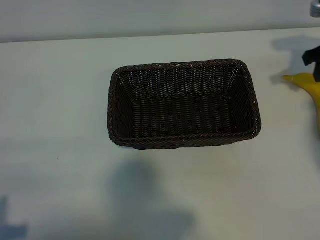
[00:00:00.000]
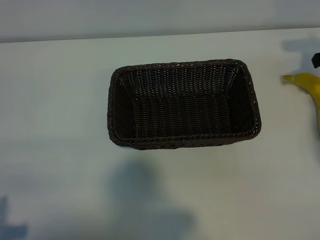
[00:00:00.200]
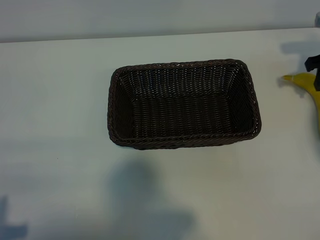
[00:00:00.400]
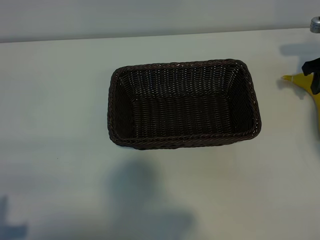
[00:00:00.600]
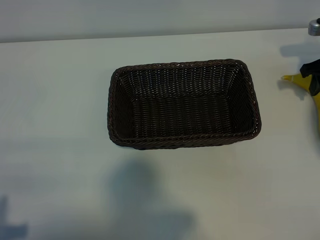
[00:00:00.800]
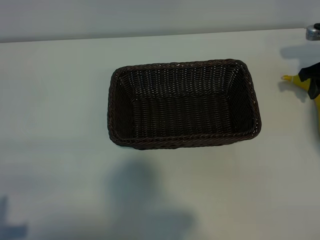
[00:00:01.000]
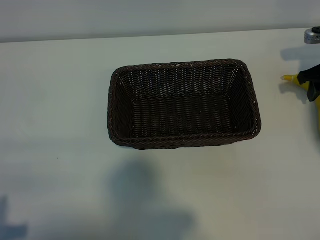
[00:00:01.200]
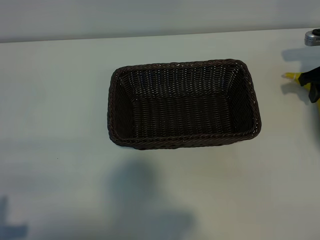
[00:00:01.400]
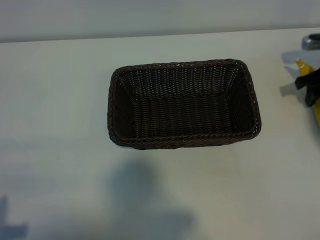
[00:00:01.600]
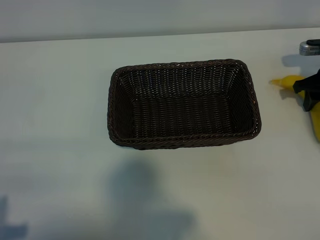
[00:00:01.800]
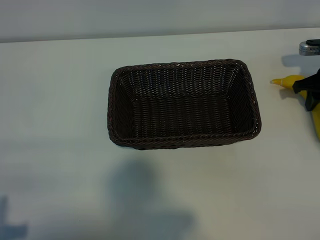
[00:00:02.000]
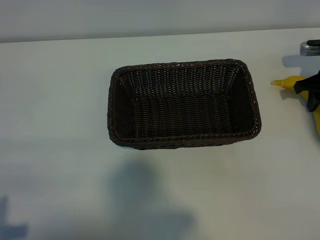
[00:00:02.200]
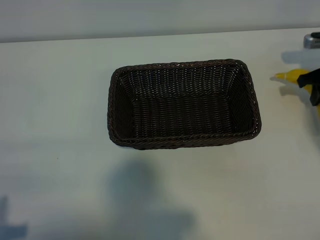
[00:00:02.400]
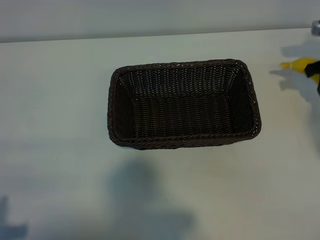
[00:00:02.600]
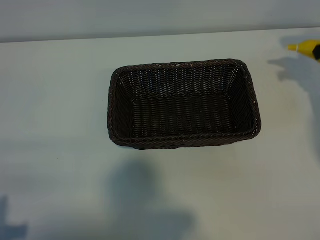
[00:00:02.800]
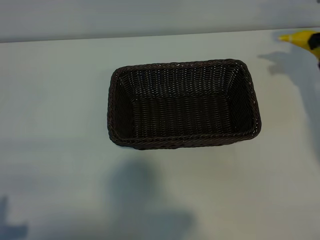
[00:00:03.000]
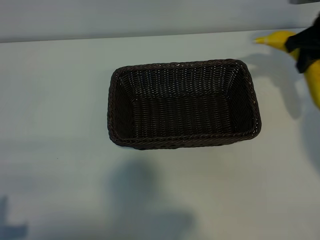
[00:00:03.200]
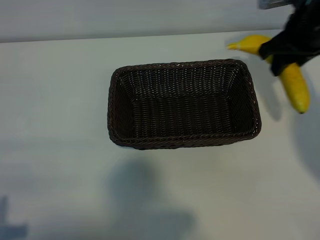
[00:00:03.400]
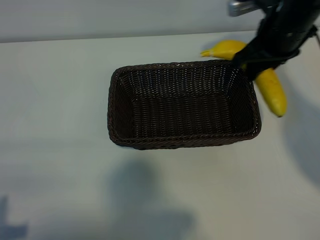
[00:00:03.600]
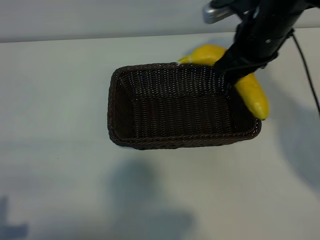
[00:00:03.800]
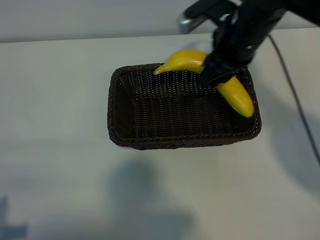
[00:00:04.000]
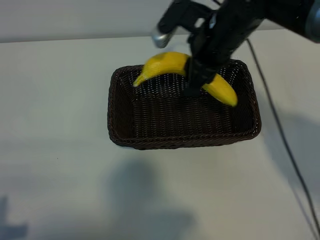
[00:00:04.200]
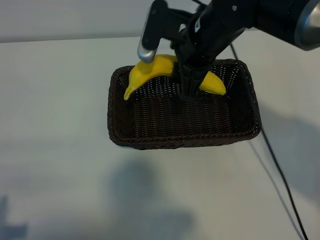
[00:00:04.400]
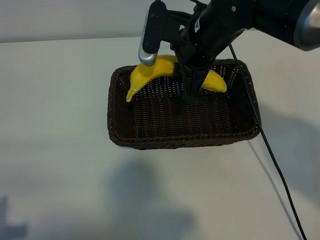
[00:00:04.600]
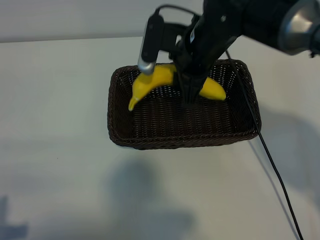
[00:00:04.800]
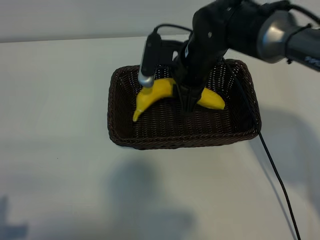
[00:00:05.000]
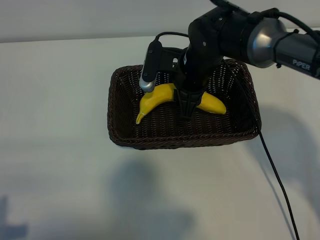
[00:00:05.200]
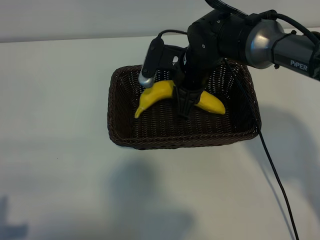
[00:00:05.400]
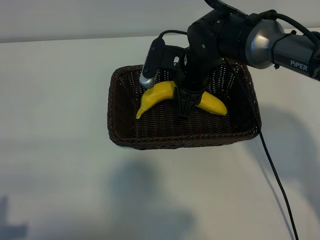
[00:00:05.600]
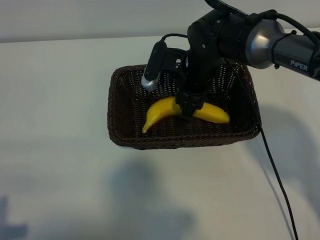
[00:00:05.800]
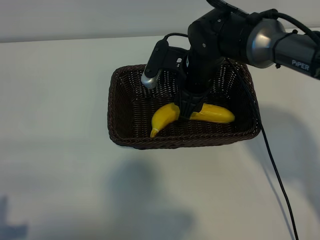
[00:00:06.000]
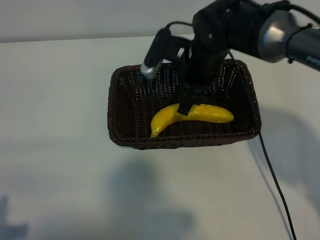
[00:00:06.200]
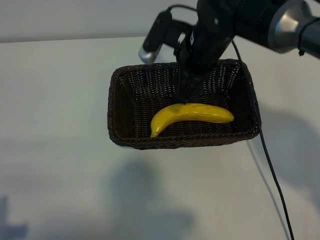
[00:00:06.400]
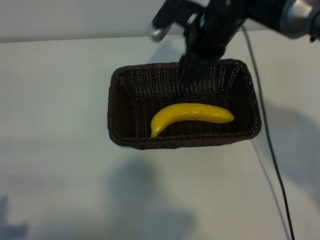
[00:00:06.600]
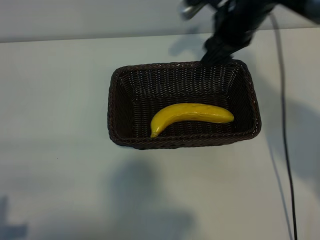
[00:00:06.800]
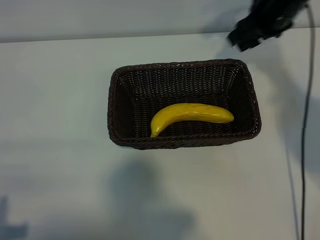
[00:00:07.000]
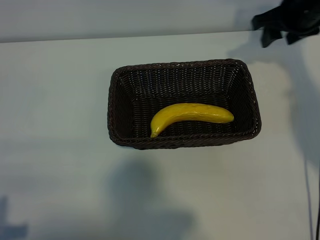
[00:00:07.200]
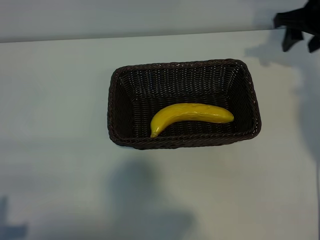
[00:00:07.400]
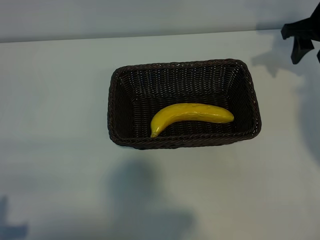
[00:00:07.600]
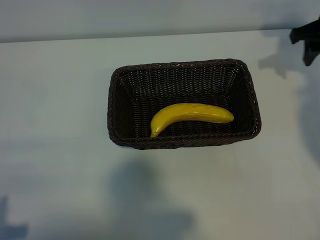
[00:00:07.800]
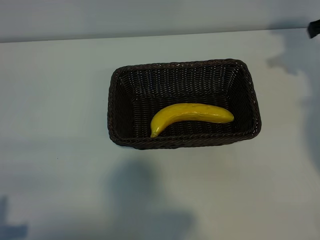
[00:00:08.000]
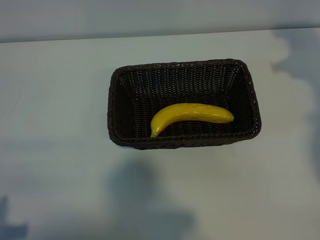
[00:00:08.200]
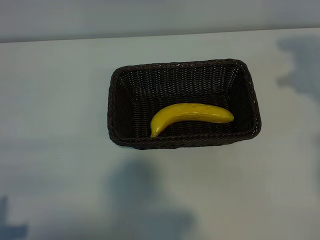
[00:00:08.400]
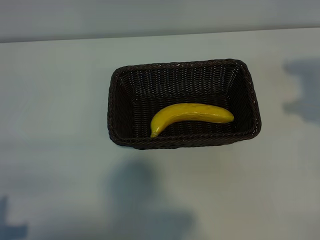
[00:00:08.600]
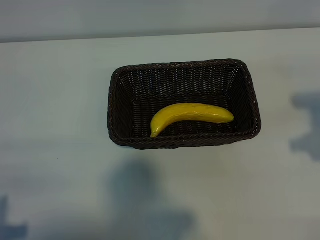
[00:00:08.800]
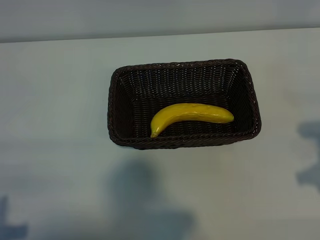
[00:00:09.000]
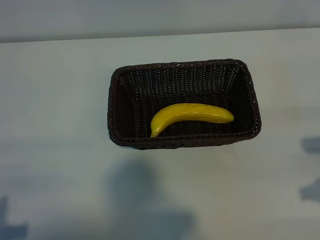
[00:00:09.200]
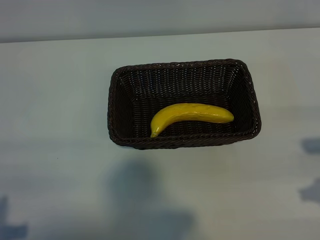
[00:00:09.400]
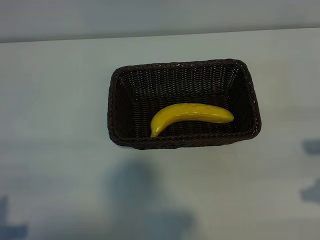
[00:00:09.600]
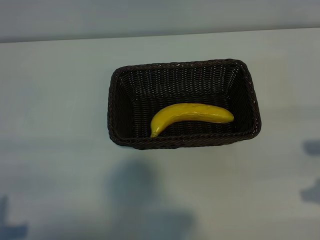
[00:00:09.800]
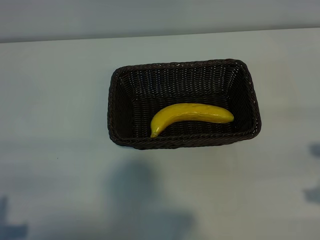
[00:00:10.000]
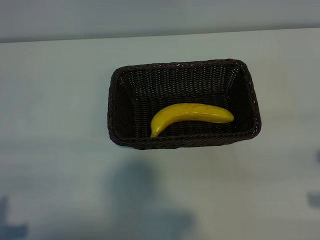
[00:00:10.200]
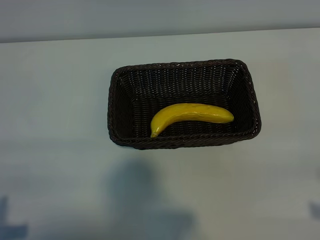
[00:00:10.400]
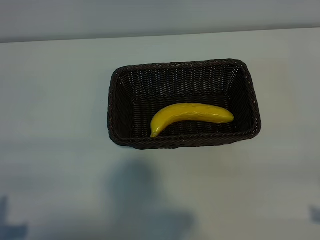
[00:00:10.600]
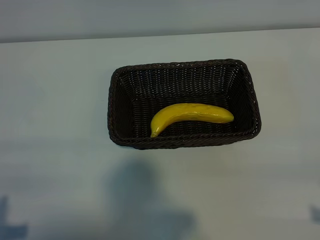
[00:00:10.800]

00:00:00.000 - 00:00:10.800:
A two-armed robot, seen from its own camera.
Task of the whole recording: pick up the banana and put it into the basket.
Step, 00:00:00.000 - 00:00:02.000: Grasp the banana with right gripper.
Step, 00:00:02.200 - 00:00:06.400: Place the banana in the basket with right gripper.

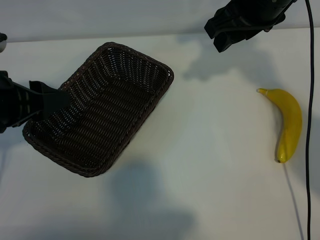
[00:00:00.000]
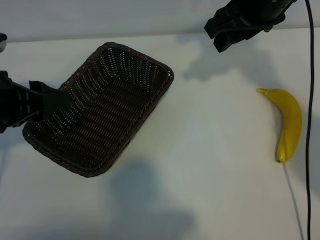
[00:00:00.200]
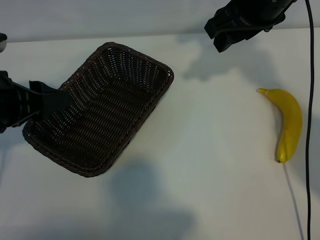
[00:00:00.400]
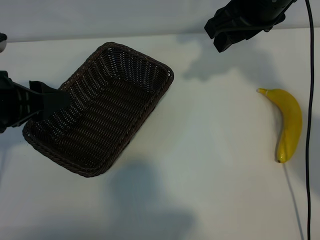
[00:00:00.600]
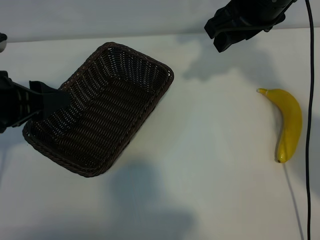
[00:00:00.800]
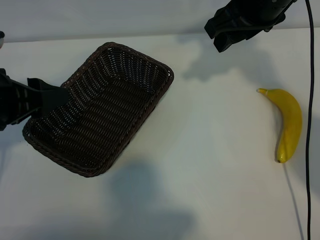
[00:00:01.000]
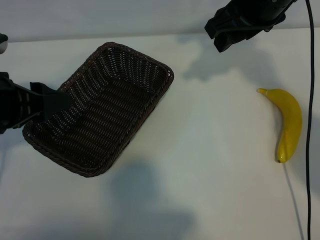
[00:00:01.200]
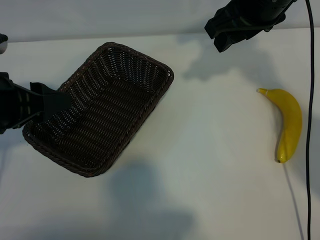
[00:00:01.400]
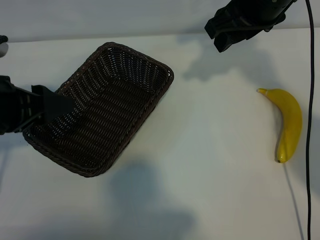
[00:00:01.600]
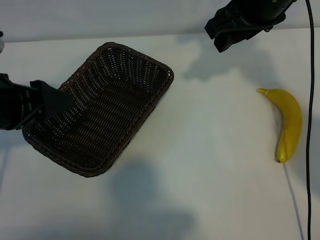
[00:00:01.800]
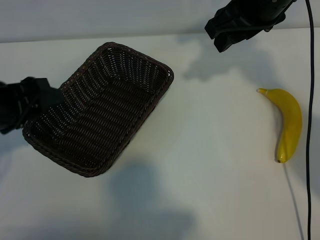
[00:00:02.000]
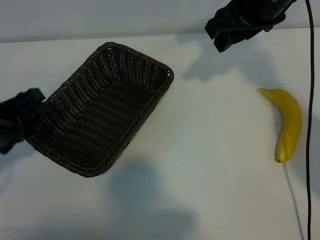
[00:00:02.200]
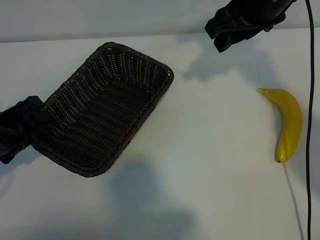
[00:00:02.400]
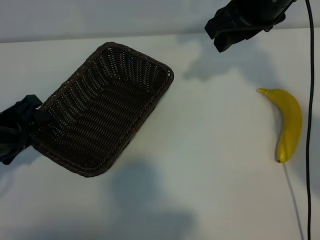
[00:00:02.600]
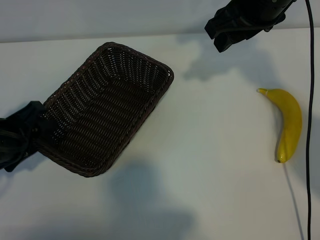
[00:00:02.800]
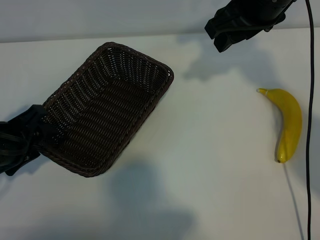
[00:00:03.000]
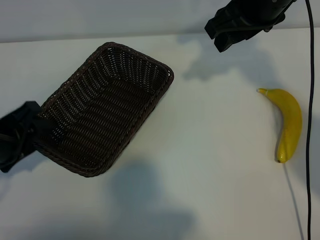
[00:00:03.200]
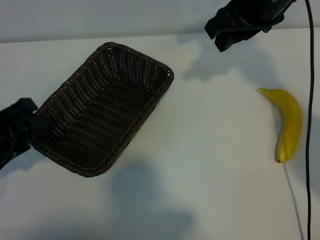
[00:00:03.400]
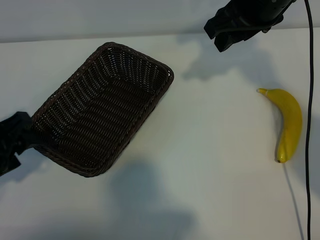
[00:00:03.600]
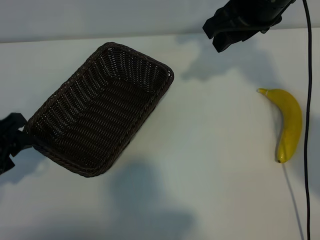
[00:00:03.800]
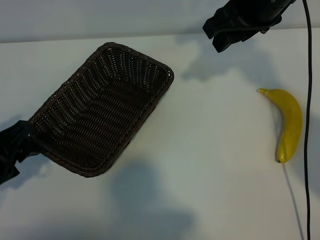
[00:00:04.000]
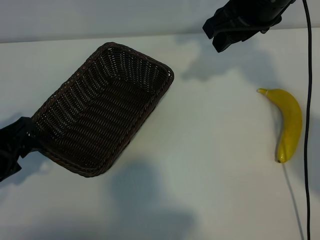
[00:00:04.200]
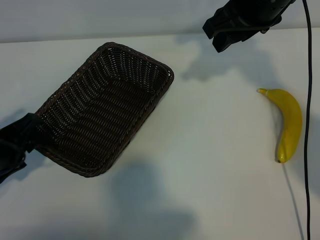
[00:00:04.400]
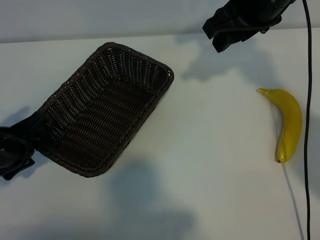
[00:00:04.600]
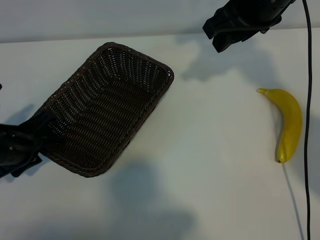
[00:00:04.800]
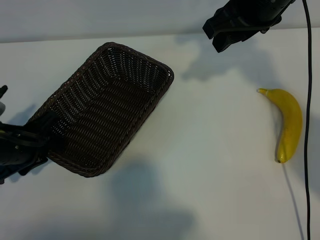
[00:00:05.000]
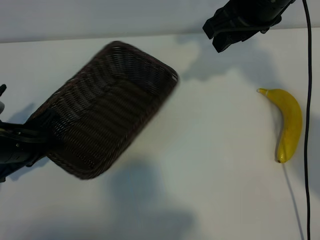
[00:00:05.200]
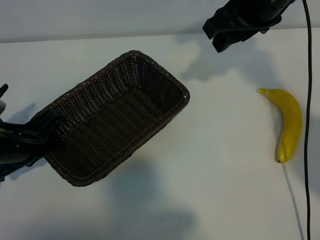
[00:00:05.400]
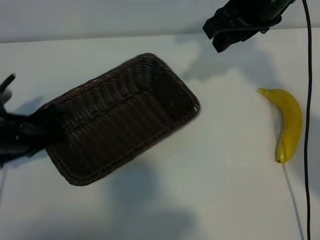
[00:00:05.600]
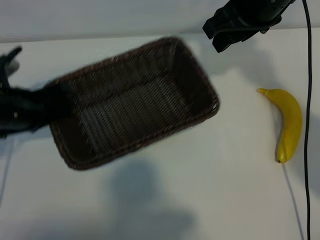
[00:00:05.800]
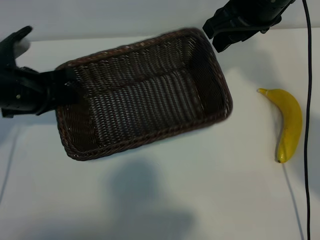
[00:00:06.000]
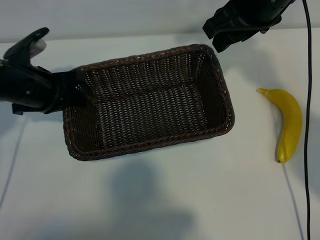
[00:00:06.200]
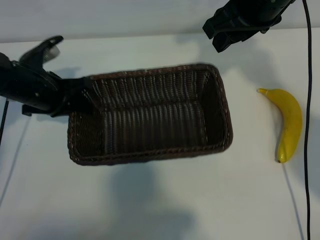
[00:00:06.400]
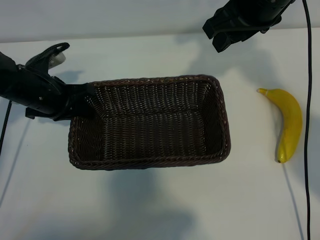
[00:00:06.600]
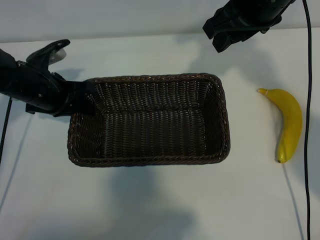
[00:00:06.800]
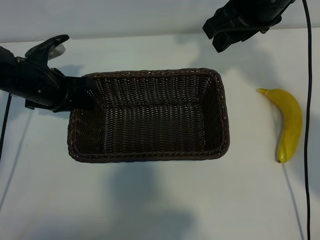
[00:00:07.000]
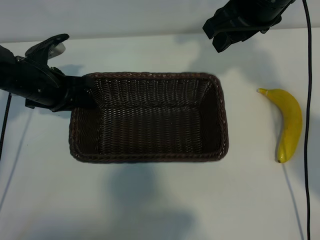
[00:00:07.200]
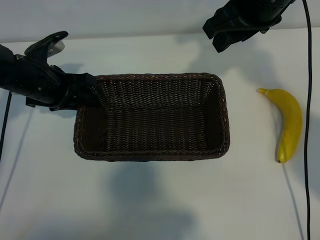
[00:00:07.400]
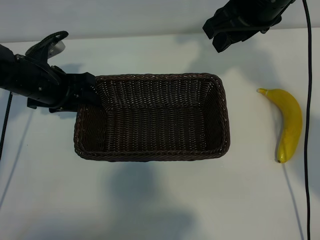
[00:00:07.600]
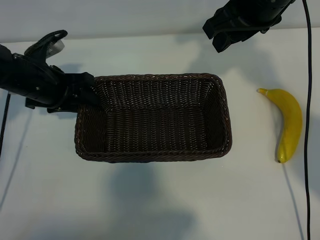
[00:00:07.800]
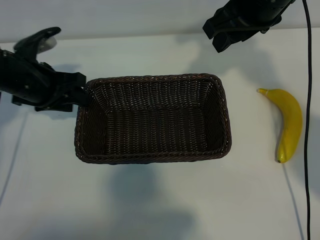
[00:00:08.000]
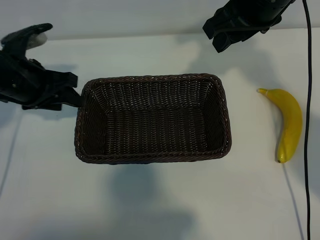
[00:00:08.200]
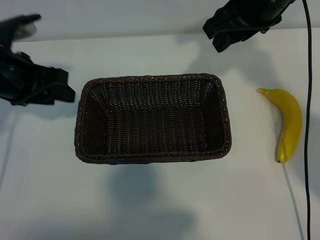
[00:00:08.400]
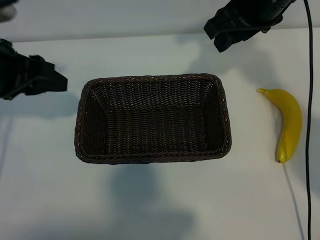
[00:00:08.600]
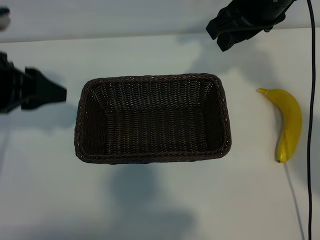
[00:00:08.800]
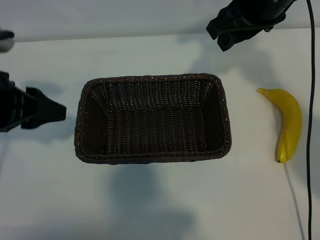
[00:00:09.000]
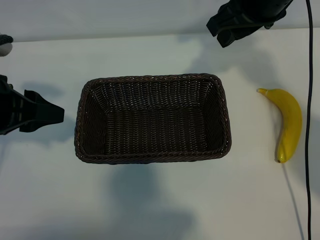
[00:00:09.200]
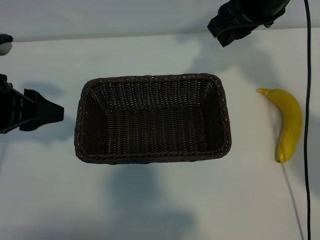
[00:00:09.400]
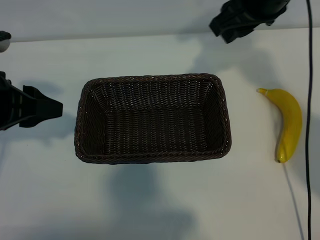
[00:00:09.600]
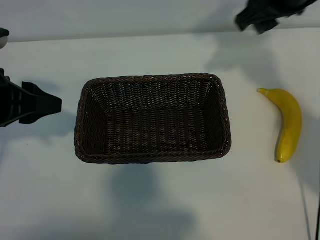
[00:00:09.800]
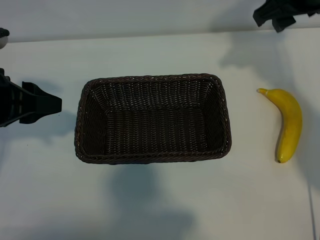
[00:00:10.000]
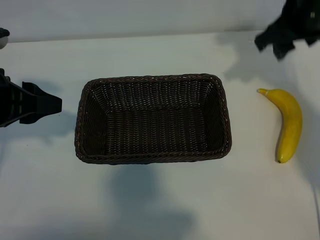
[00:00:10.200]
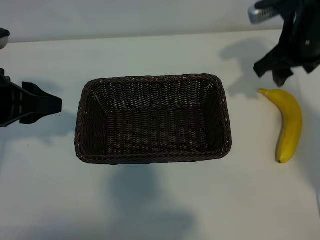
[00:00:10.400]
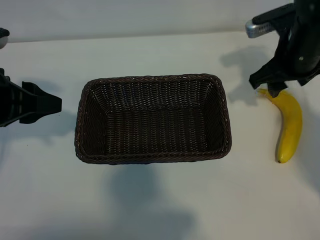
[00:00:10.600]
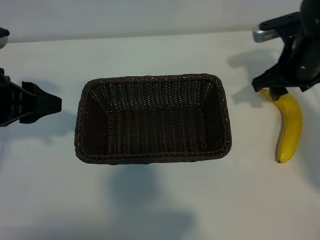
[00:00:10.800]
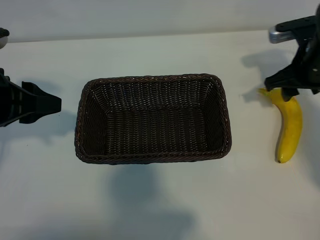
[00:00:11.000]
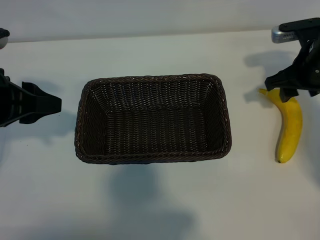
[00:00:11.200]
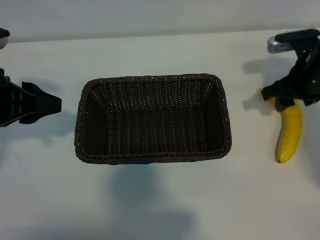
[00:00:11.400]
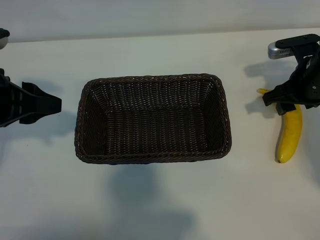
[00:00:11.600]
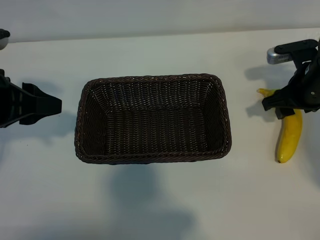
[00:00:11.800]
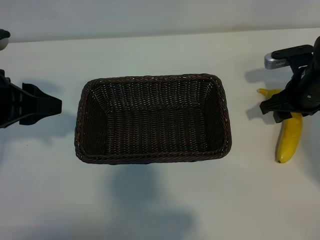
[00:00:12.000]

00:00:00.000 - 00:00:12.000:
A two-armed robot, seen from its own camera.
Task of the whole recording: pick up the banana and put it into the basket.
Step, 00:00:00.800 - 00:00:05.000: Grasp the basket with the left gripper.
Step, 00:00:05.200 - 00:00:07.800: Place the basket in the center of the table with the left gripper.
